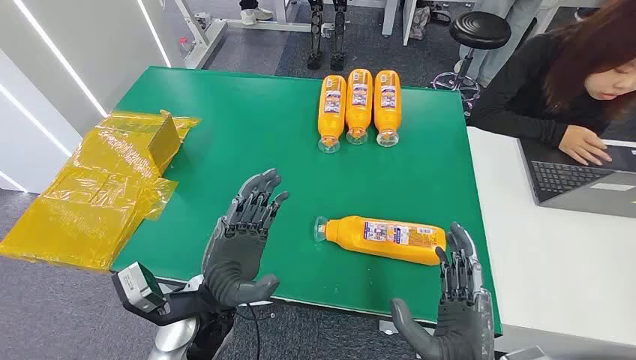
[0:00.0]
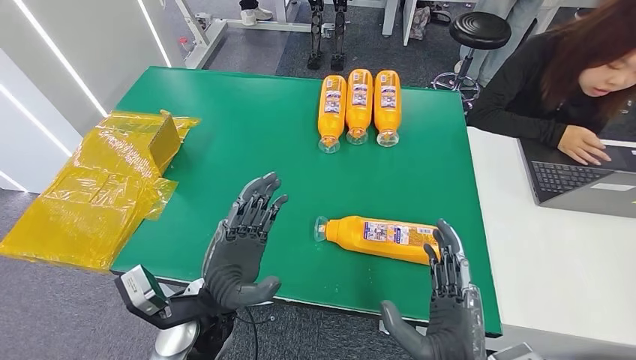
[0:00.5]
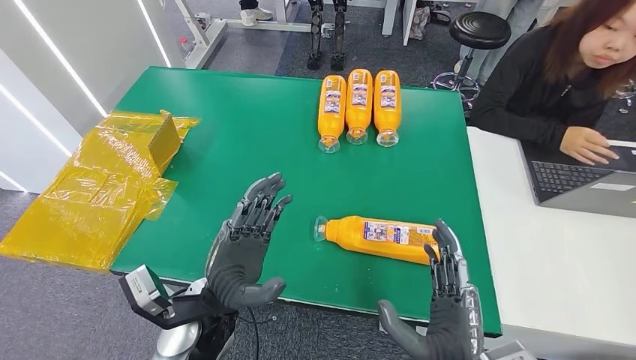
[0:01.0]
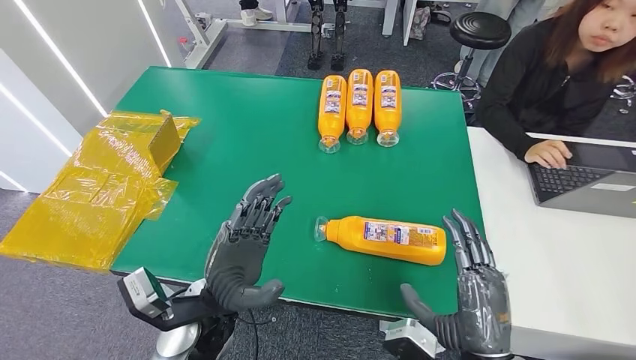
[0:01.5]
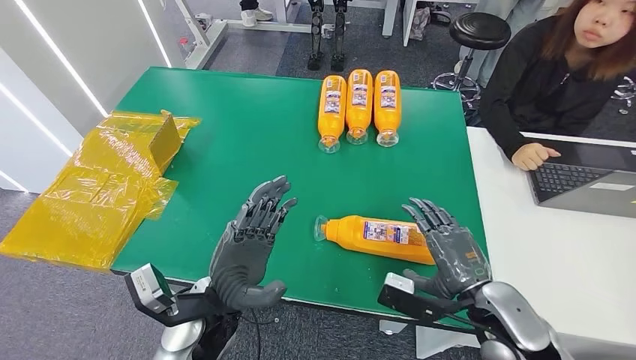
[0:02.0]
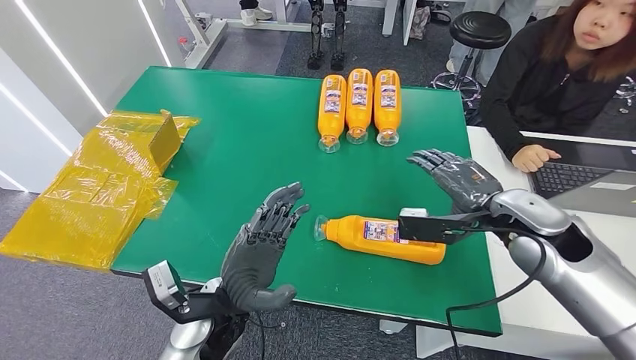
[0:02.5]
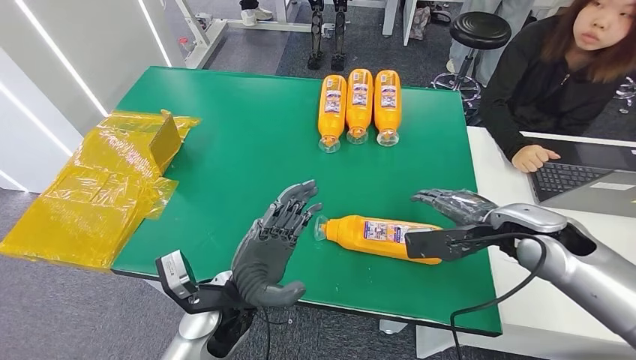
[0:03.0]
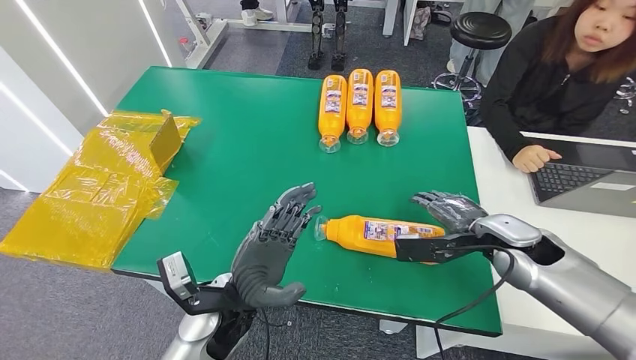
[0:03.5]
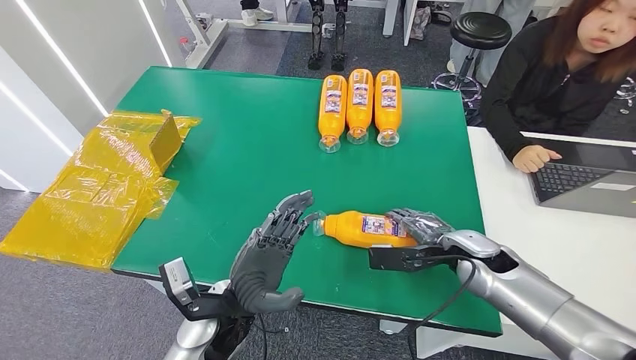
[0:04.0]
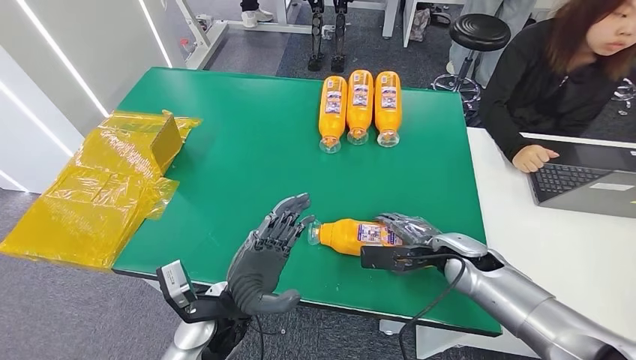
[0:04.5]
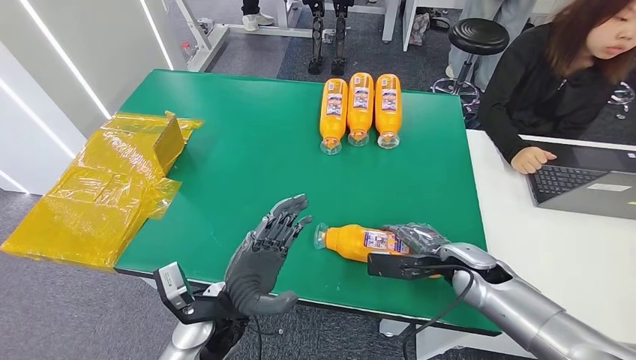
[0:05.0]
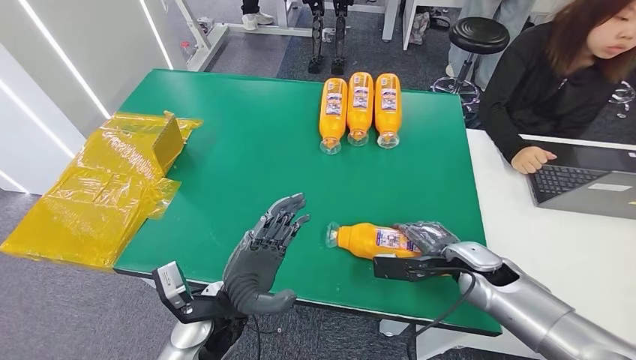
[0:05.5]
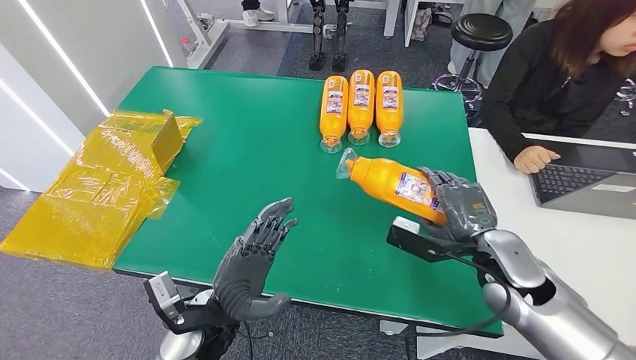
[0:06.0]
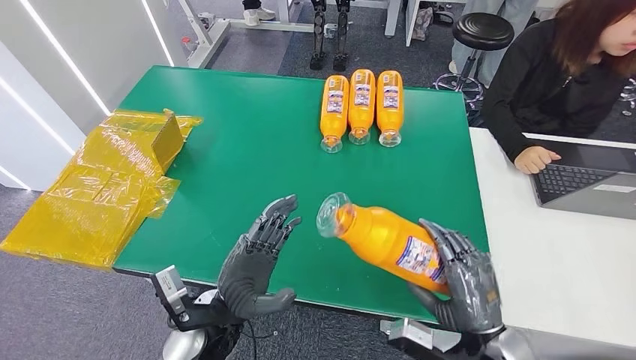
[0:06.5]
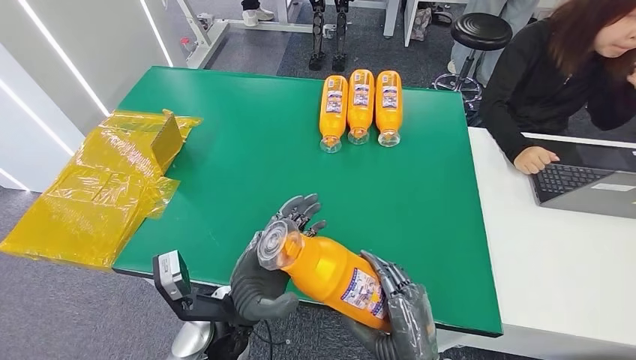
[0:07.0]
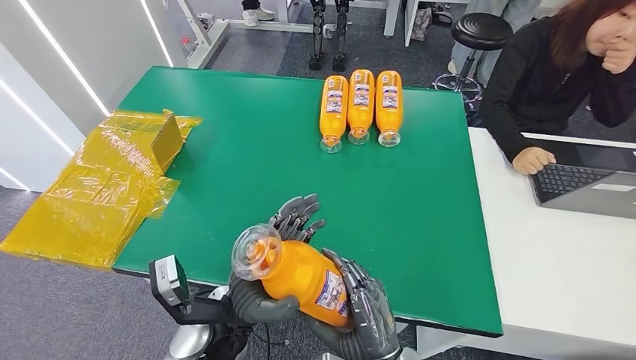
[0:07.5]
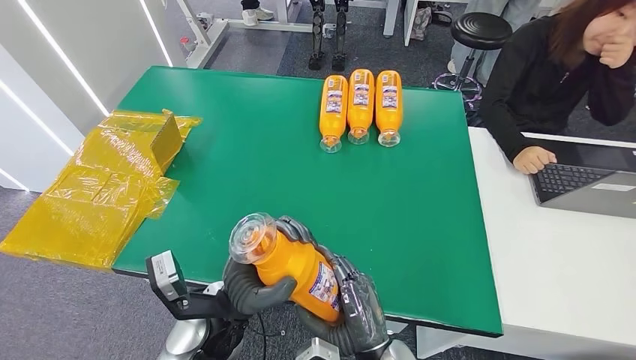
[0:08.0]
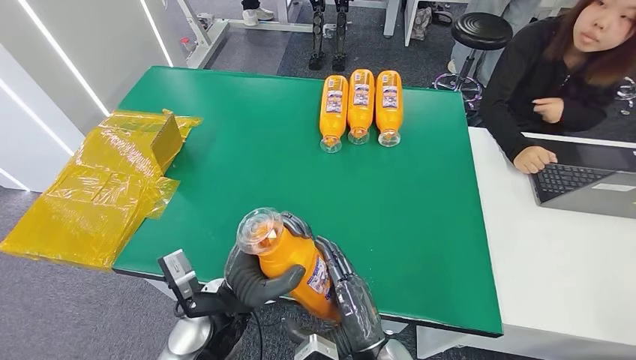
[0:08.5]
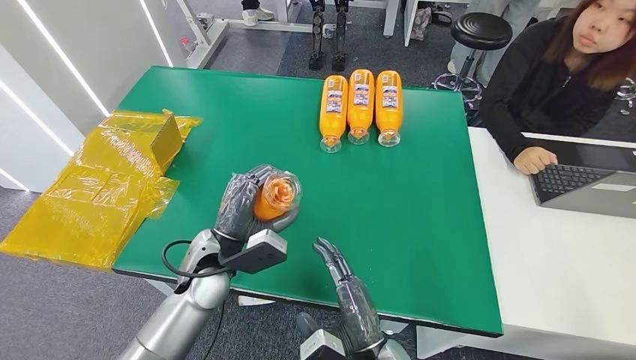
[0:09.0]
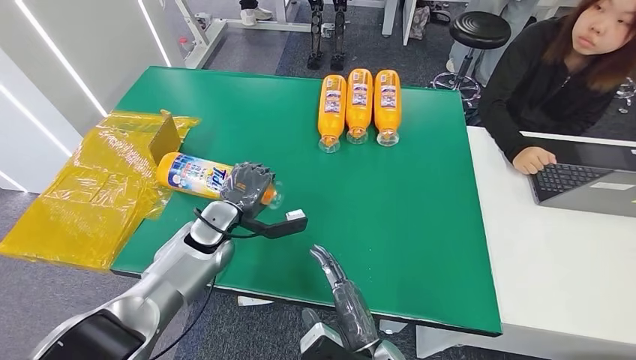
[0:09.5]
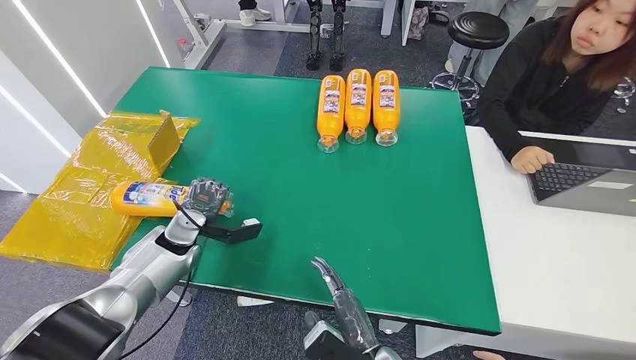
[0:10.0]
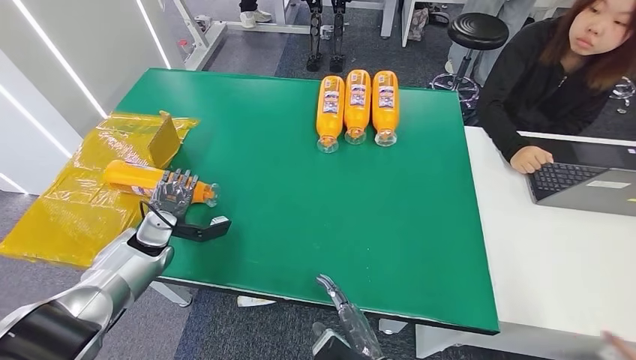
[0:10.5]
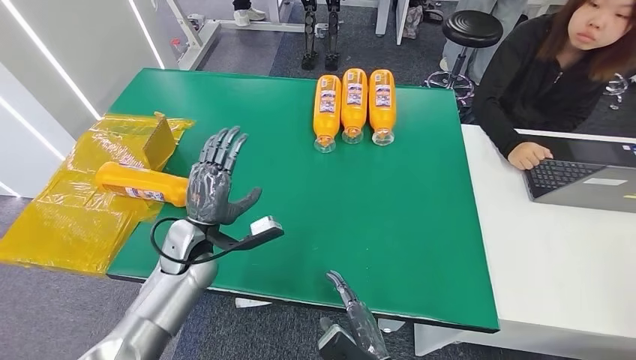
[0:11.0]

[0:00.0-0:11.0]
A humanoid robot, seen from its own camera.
Step, 0:00.0 to 0:06.5: Pick up the bottle from the table.
Step, 0:07.0 to 0:11.0: Turn the bottle to the front side.
0:02.0 to 0:03.5: The right hand shifts about 10 cm forward.
0:03.5 to 0:05.5: The right hand shifts approximately 10 cm downward.
0:07.5 to 0:09.0: The left hand heads forward and to the left, covering some 10 cm.
